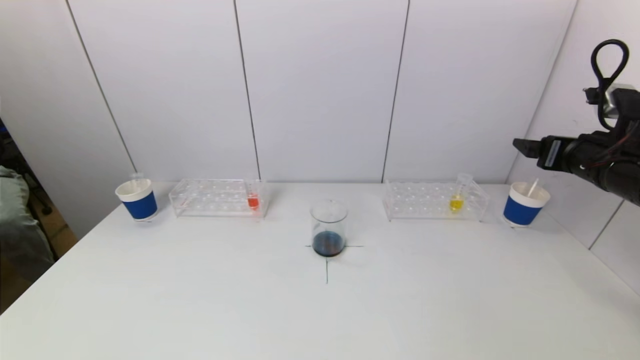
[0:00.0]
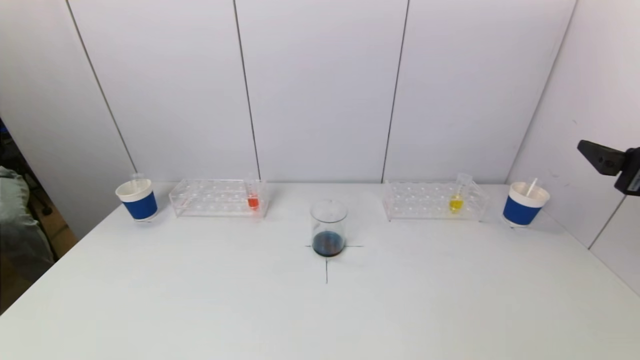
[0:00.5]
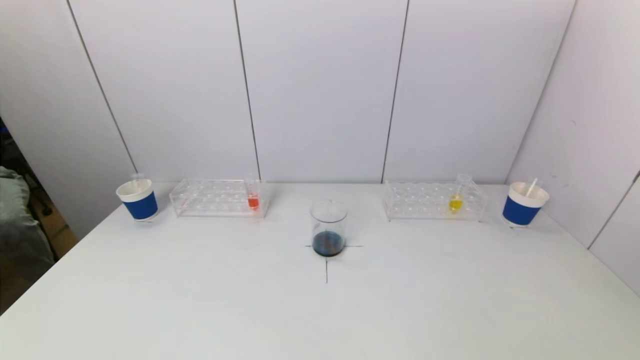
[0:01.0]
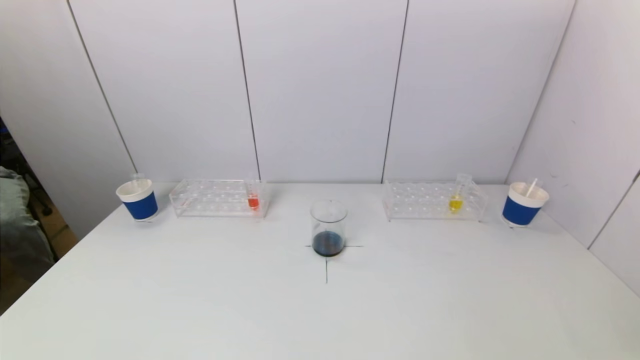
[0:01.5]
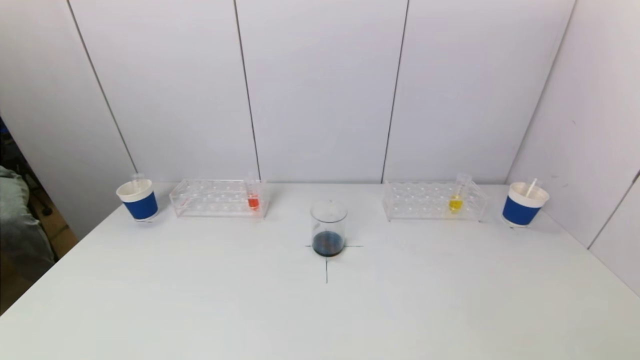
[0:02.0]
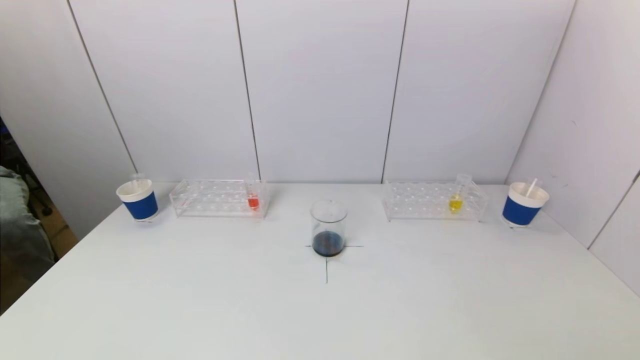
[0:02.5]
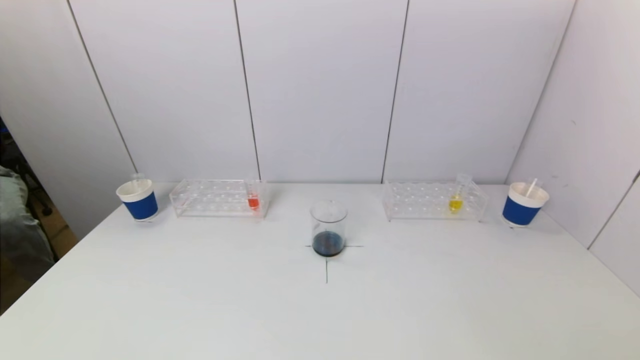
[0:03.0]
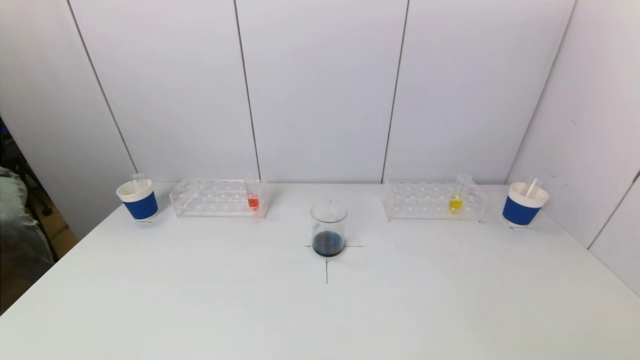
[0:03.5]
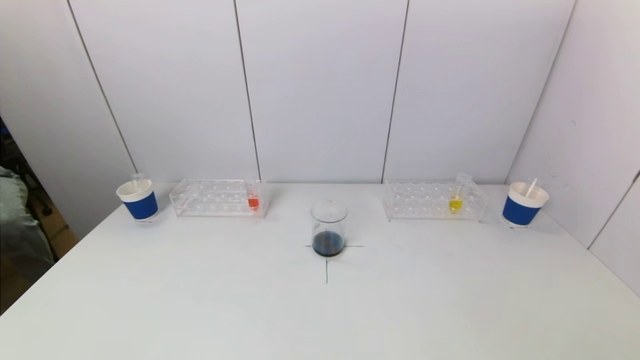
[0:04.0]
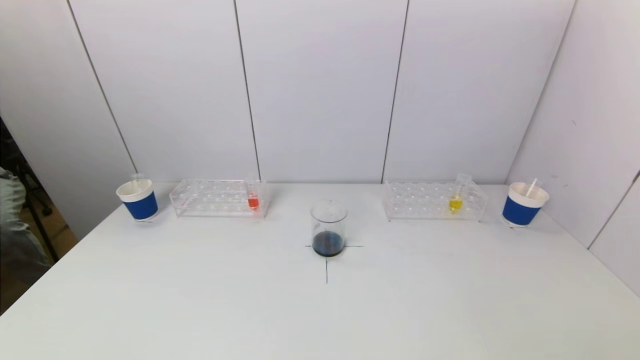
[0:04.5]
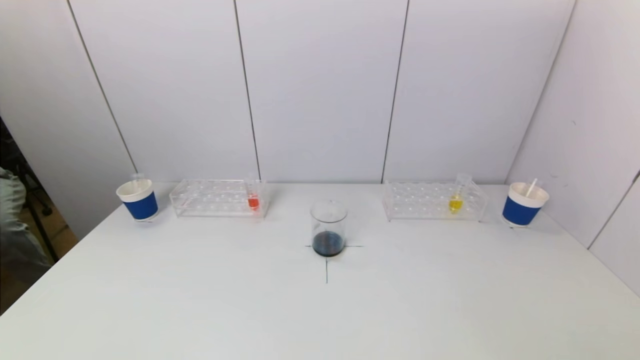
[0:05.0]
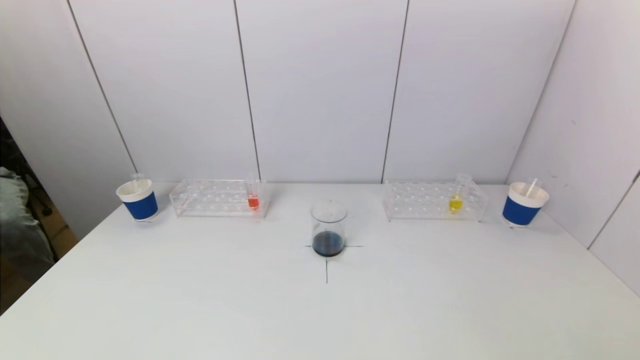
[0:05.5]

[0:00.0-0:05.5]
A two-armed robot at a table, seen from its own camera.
Task of the whole recording: pick up a test tube with pigment on left test tube rack and a test tube with pigment on right test tube rack by grippers and pour them into the beaker.
0:00.0 to 0:02.0: The right gripper shifts some 30 cm backward.
